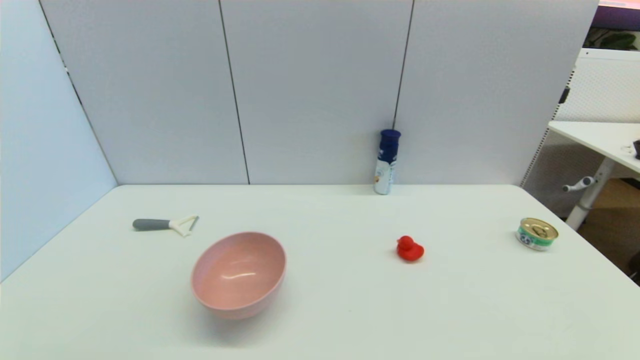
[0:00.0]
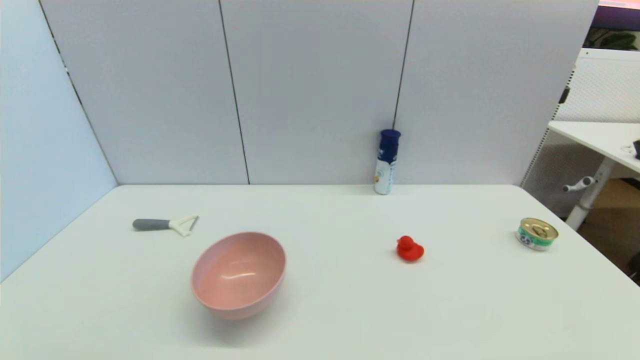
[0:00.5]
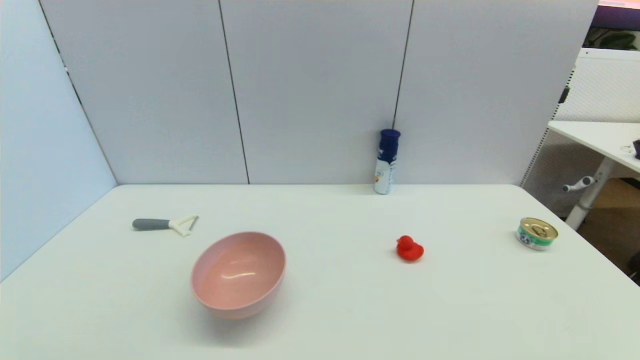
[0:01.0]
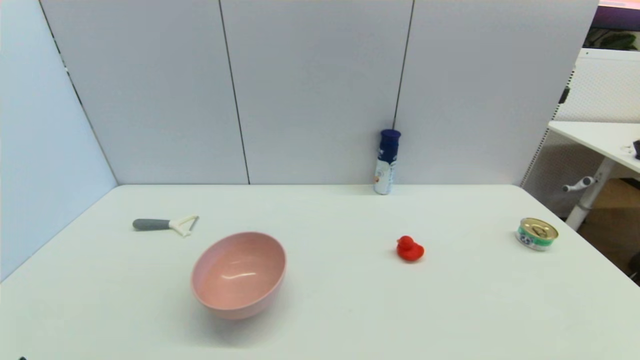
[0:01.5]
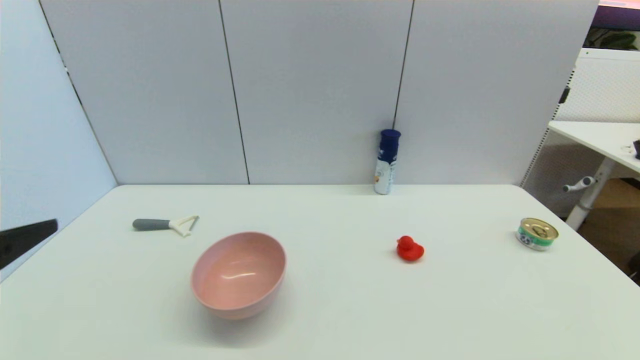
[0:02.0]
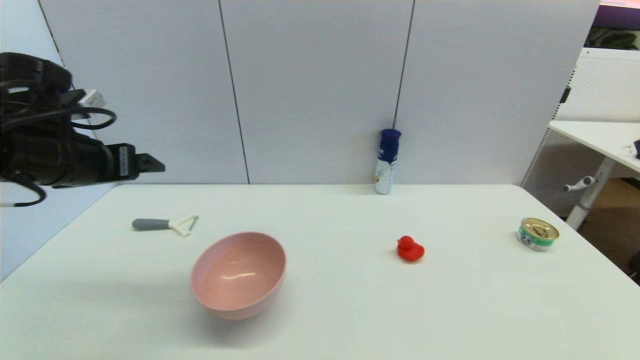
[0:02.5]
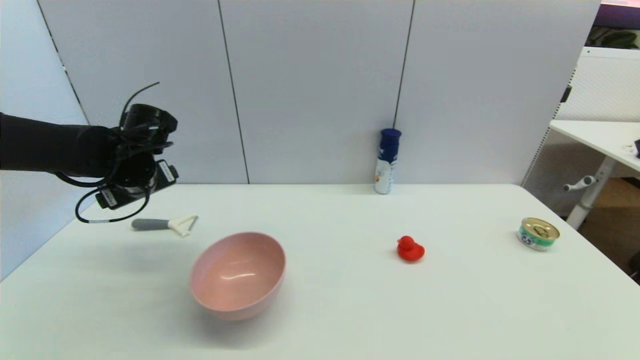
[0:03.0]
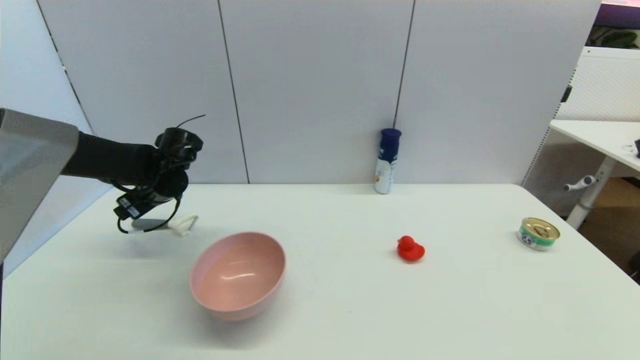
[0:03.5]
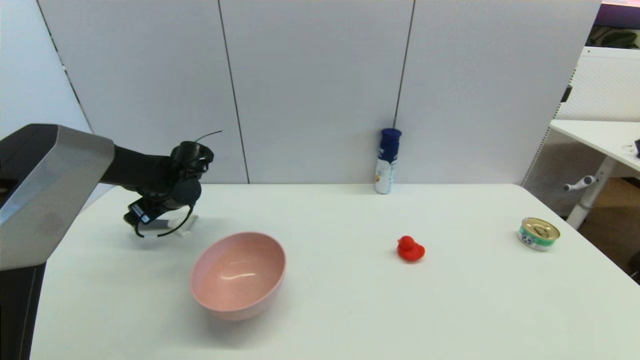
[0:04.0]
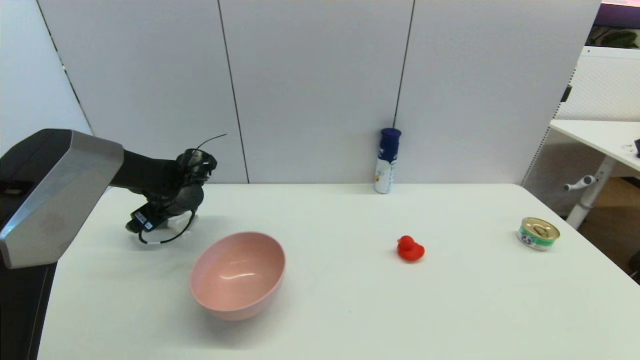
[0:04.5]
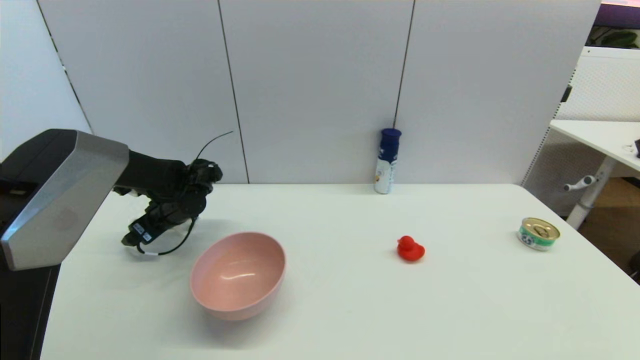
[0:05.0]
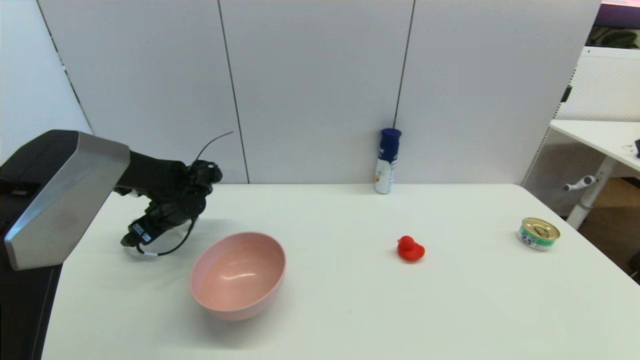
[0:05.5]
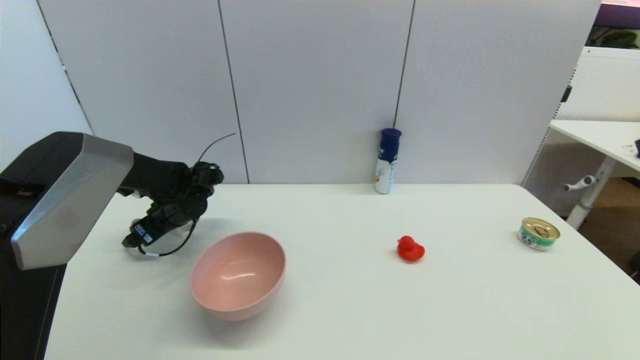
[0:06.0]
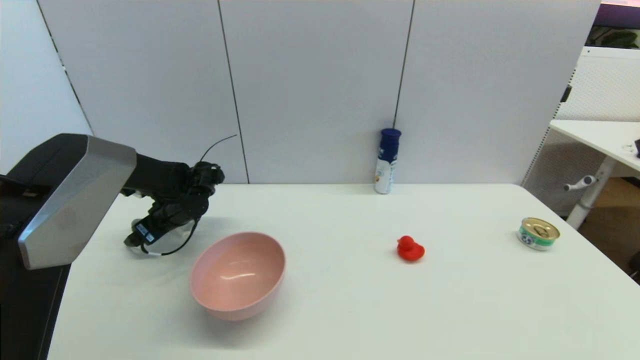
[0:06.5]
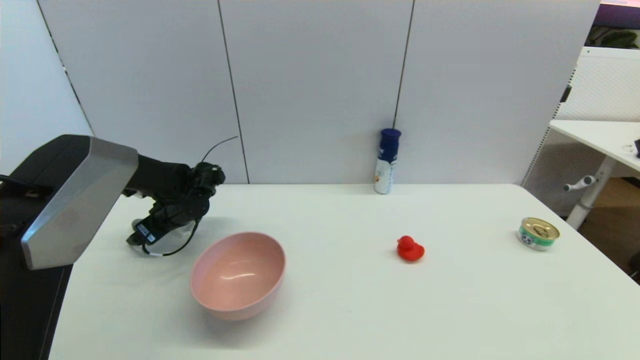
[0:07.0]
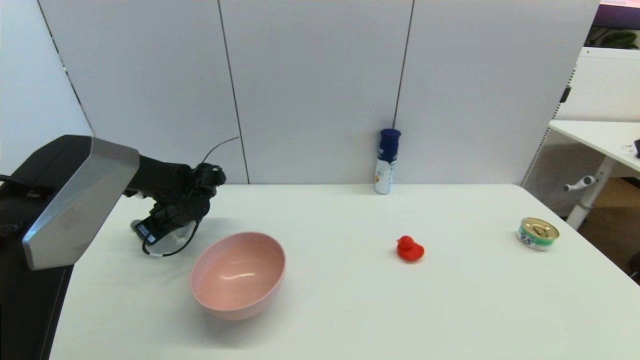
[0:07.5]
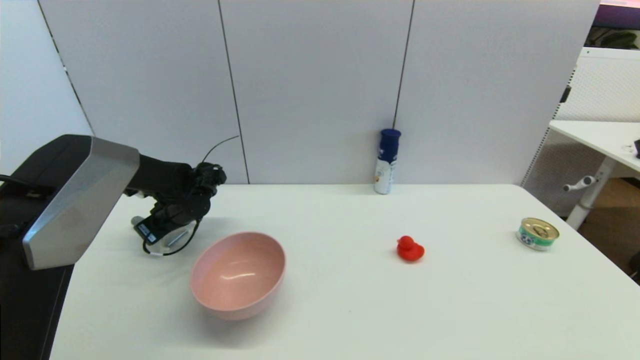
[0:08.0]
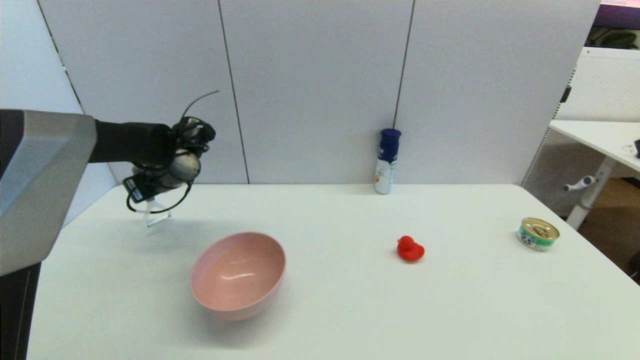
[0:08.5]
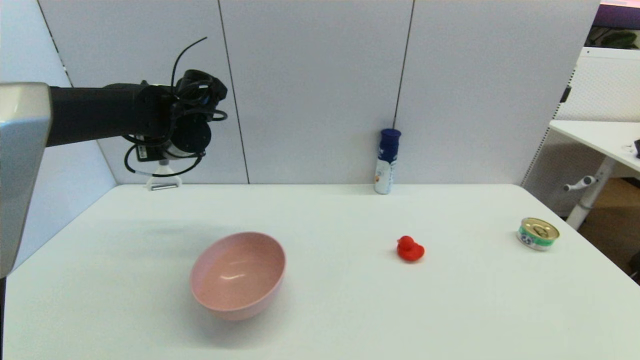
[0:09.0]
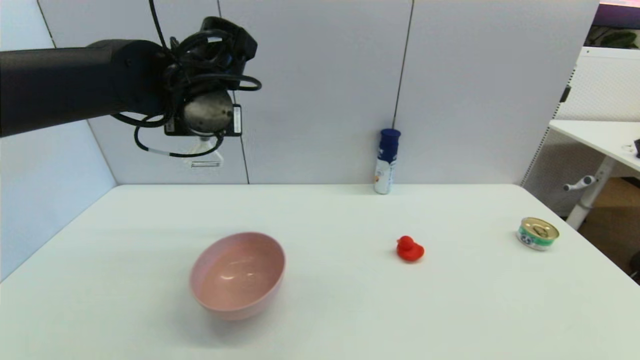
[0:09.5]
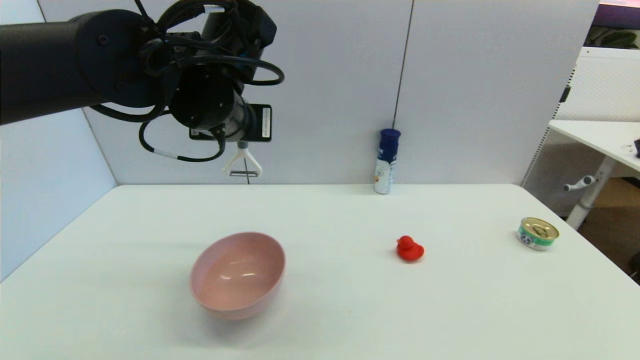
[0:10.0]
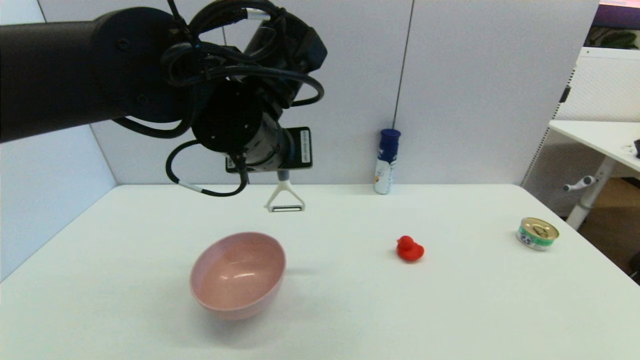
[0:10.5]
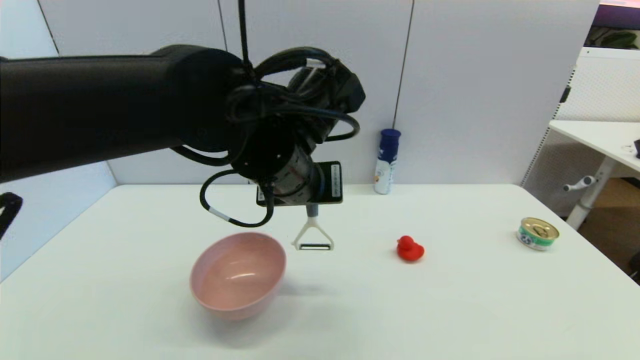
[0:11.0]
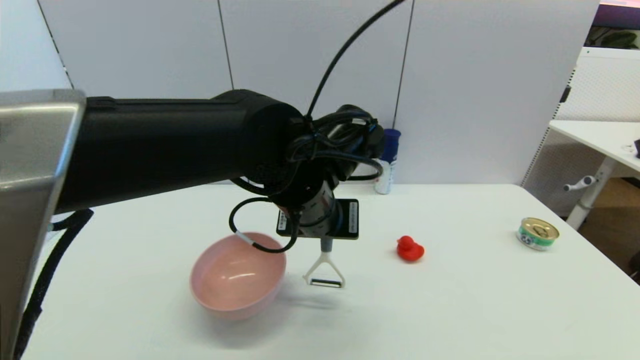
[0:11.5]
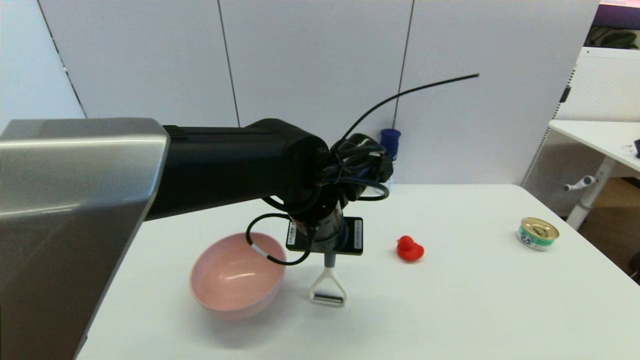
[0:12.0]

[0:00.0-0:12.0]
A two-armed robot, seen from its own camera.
Step, 0:02.0 to 0:08.5: Grasp the peeler with left gripper.
0:00.0 to 0:02.0: The left gripper goes some 20 cm upward and forward.
0:02.0 to 0:04.0: The left gripper is displaced forward and downward by approximately 40 cm.
0:04.0 to 0:06.0: The grippers make only small movements.
0:06.0 to 0:08.0: The left gripper closes up.
0:08.0 to 0:10.0: The left gripper is displaced upward, to the right and backward by roughly 30 cm.
0:10.0 to 0:12.0: The left gripper travels downward and to the right by about 15 cm.

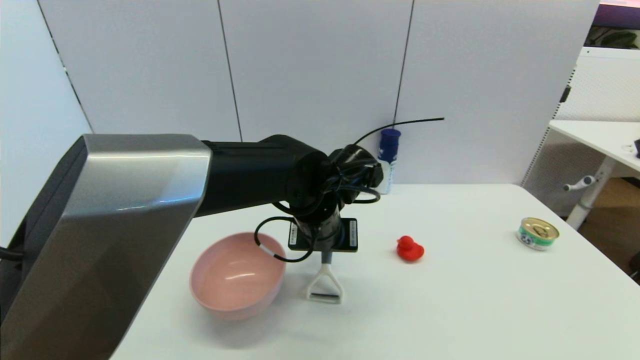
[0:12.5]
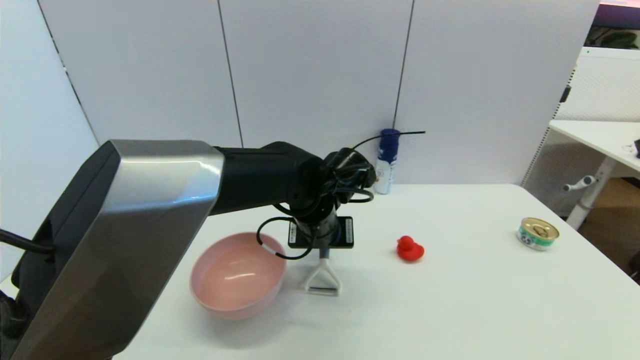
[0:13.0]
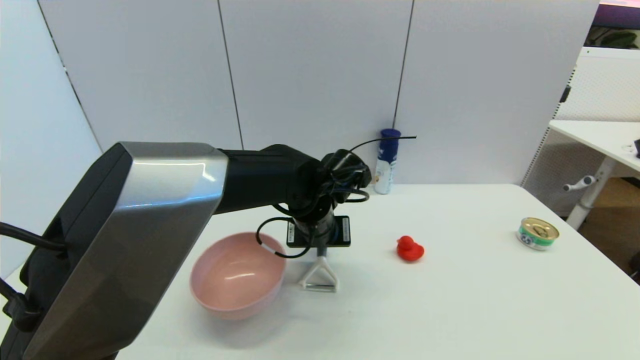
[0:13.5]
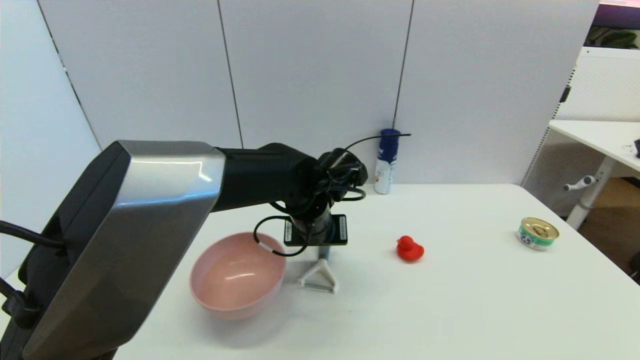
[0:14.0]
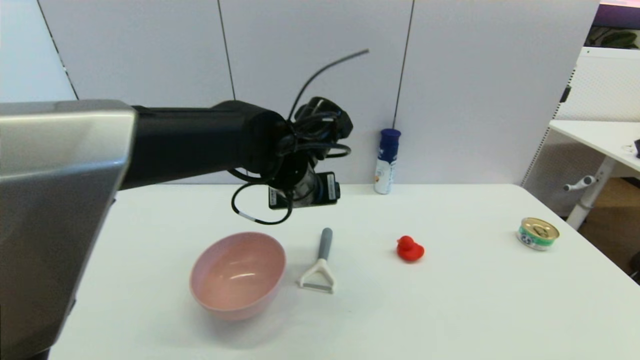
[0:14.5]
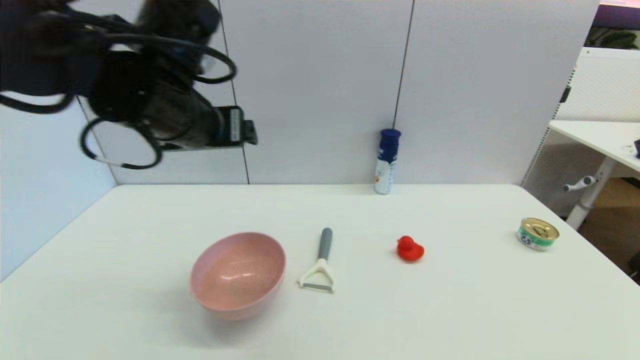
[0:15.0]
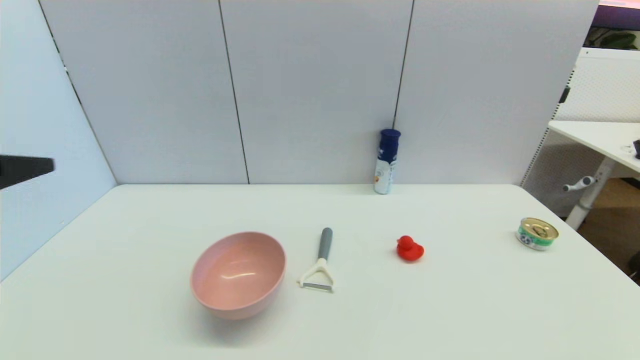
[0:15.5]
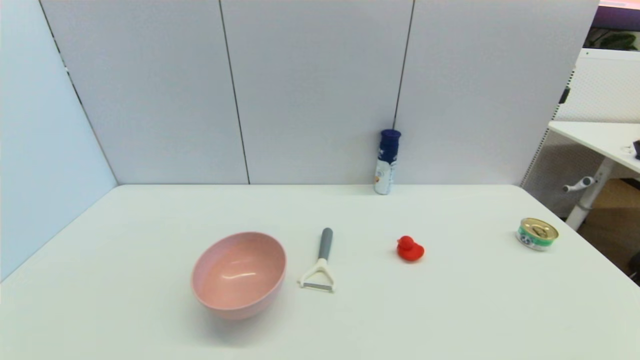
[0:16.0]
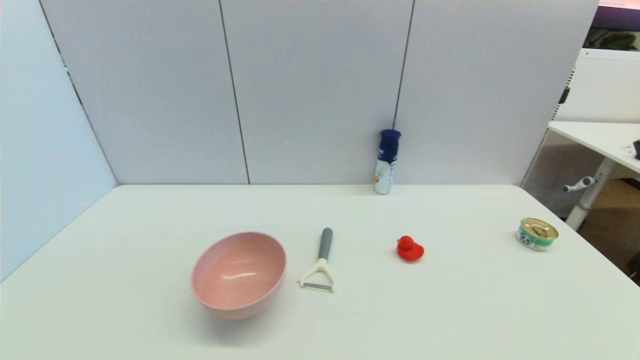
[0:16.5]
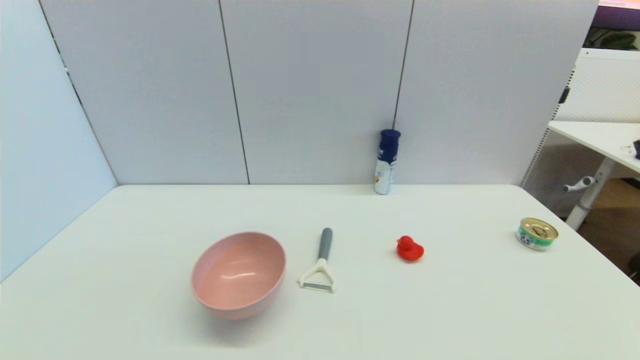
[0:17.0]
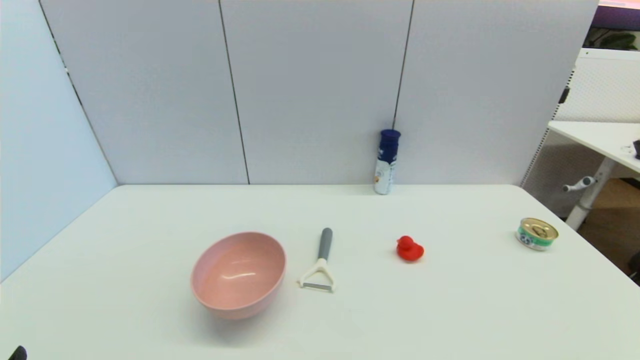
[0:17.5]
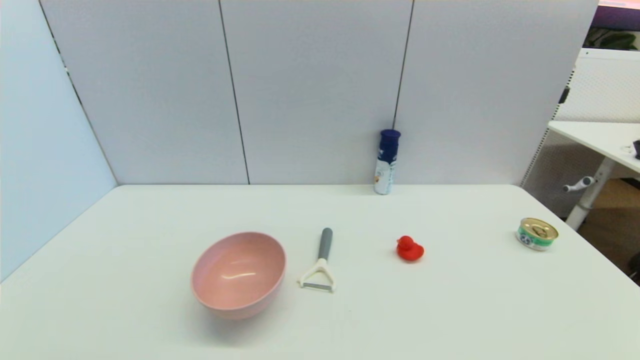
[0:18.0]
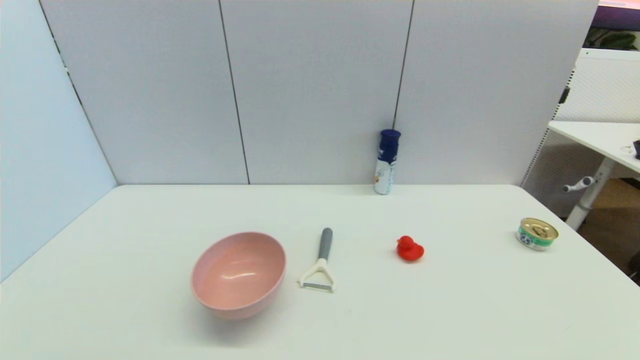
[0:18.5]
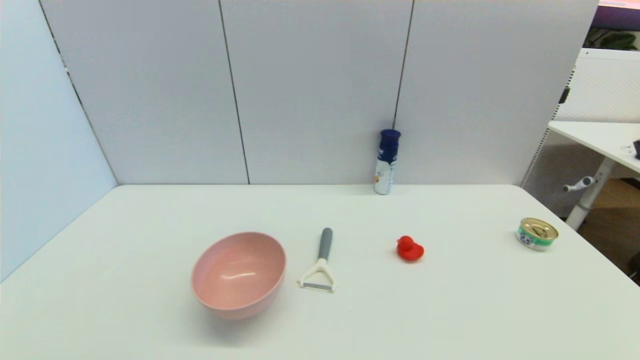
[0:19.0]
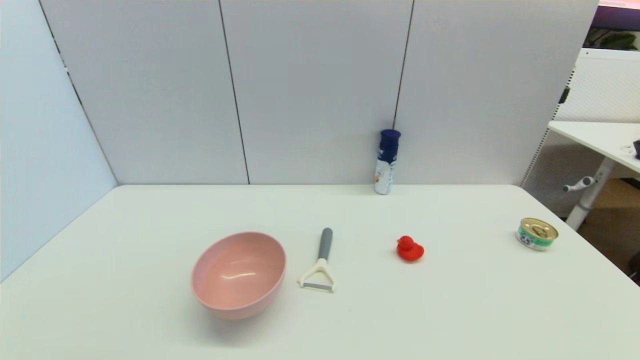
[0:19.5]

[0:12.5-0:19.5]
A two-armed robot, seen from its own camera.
0:12.5 to 0:14.5: The left gripper moves upward, about 5 cm, and opens up.
0:14.5 to 0:16.0: The left gripper heads backward and to the left, covering approximately 40 cm.
